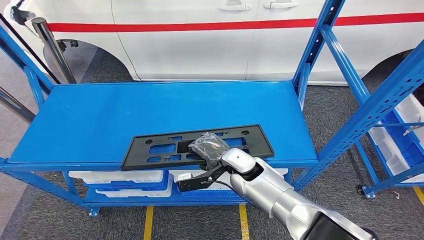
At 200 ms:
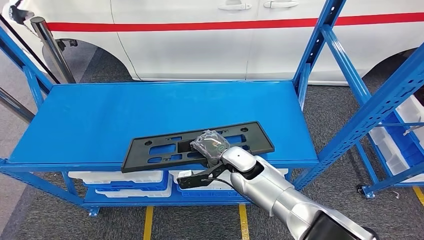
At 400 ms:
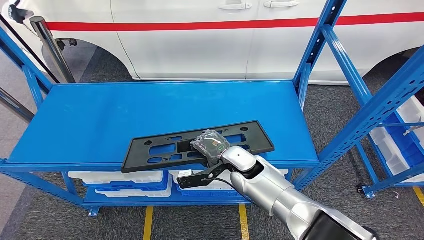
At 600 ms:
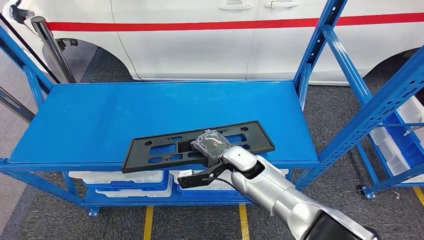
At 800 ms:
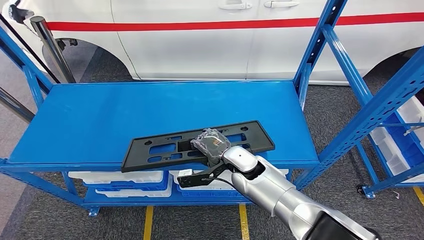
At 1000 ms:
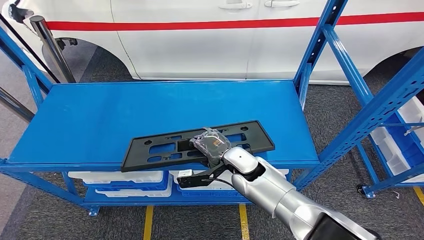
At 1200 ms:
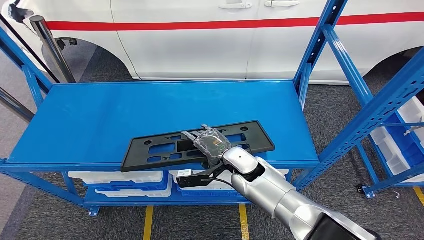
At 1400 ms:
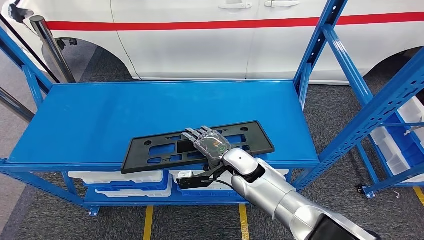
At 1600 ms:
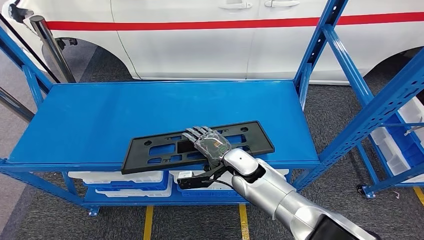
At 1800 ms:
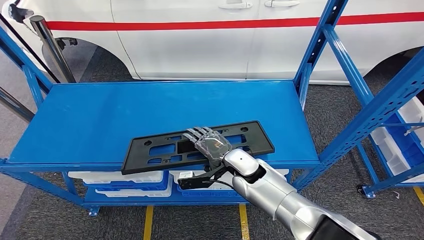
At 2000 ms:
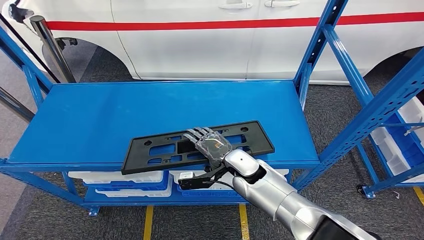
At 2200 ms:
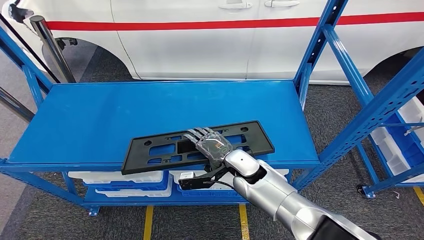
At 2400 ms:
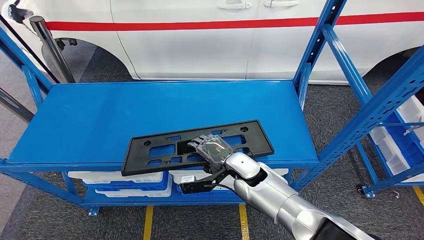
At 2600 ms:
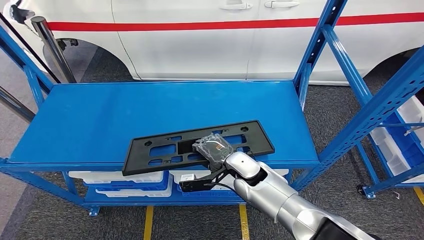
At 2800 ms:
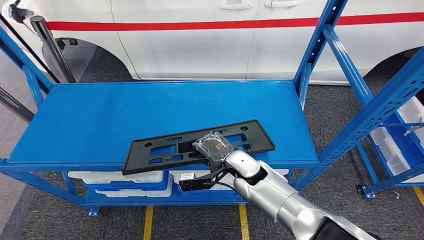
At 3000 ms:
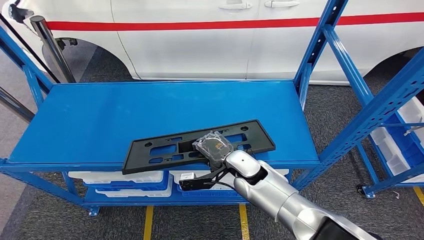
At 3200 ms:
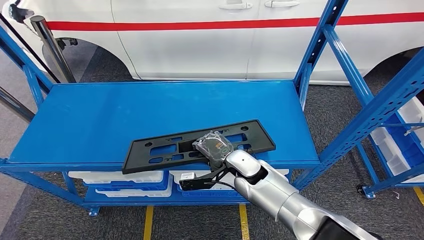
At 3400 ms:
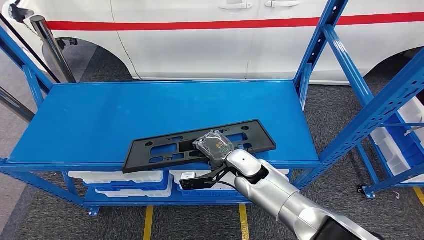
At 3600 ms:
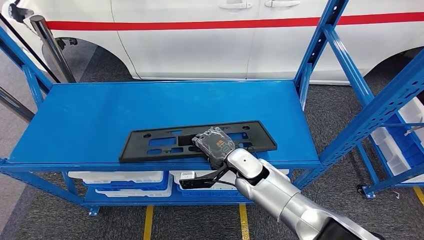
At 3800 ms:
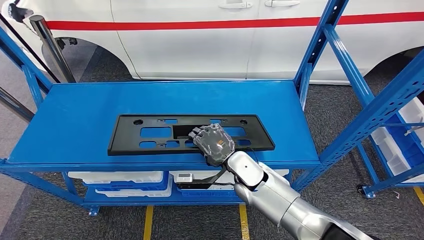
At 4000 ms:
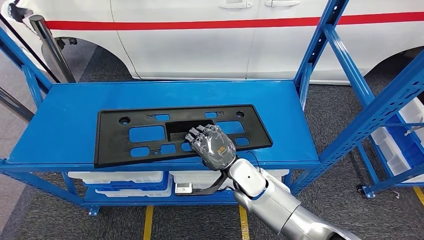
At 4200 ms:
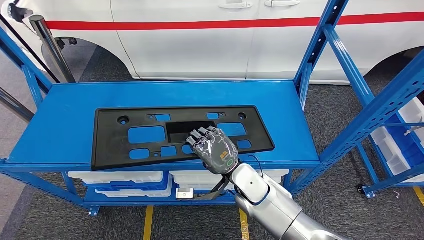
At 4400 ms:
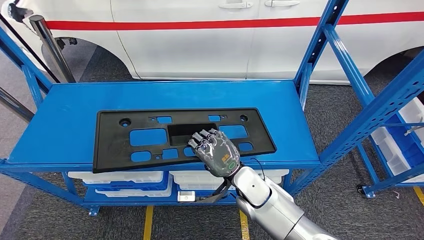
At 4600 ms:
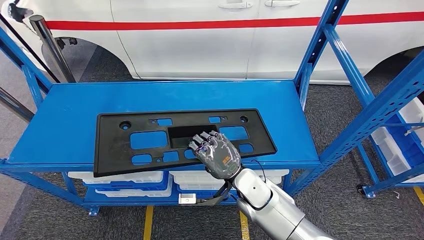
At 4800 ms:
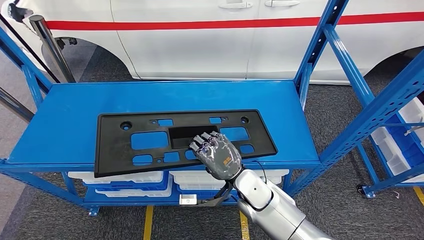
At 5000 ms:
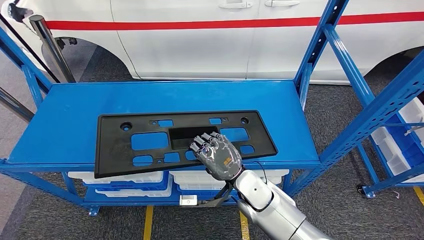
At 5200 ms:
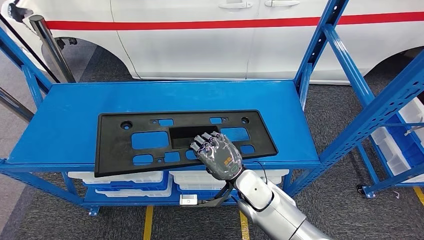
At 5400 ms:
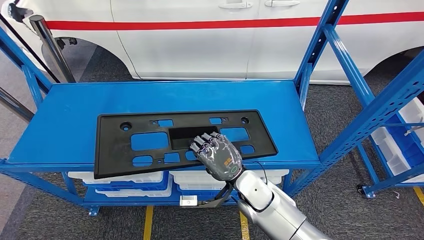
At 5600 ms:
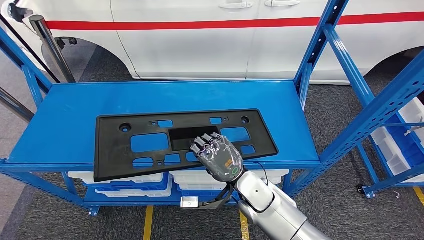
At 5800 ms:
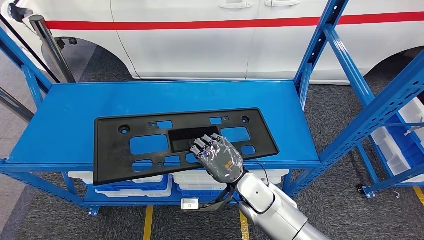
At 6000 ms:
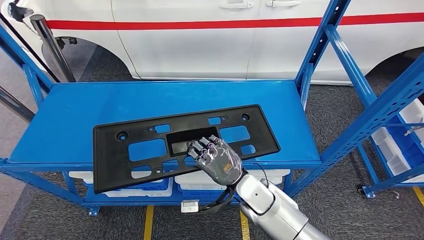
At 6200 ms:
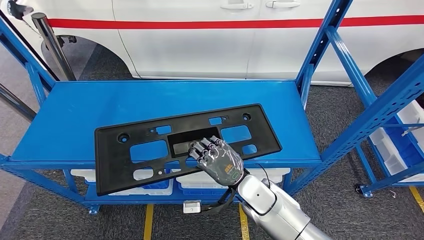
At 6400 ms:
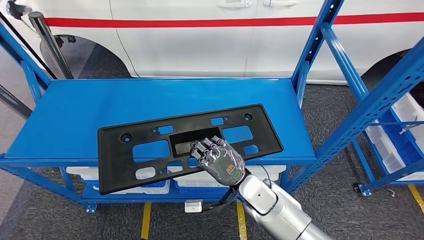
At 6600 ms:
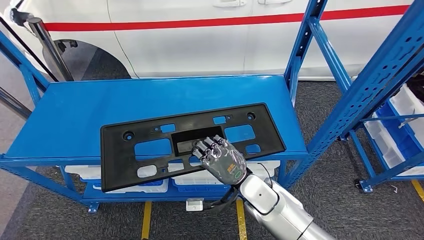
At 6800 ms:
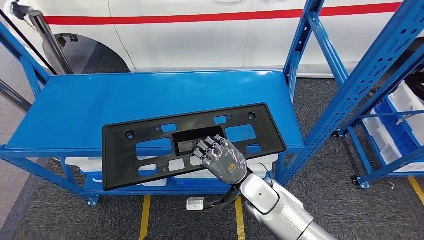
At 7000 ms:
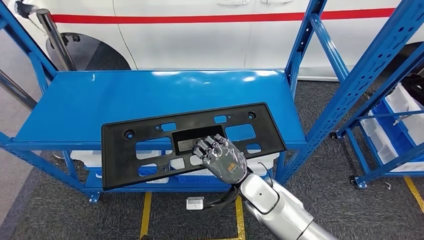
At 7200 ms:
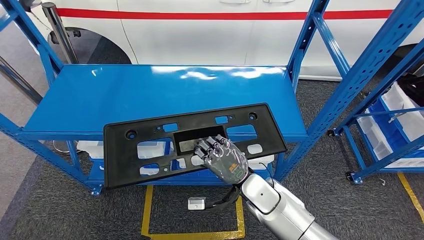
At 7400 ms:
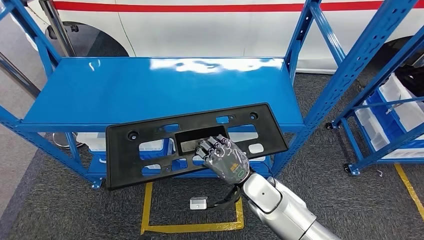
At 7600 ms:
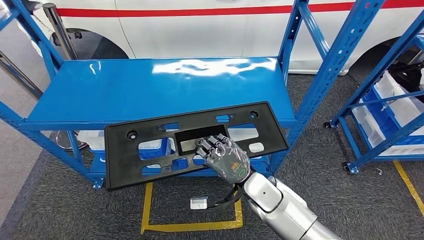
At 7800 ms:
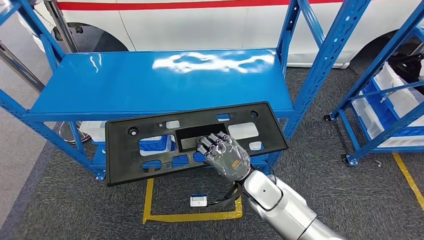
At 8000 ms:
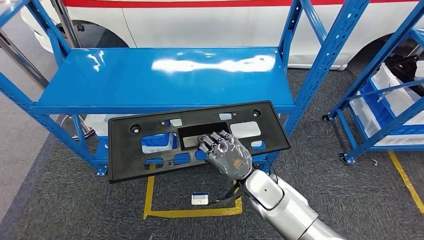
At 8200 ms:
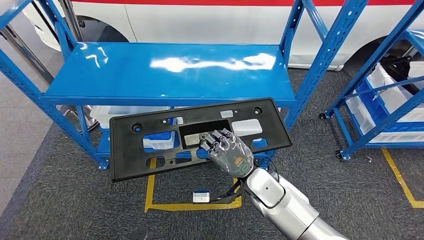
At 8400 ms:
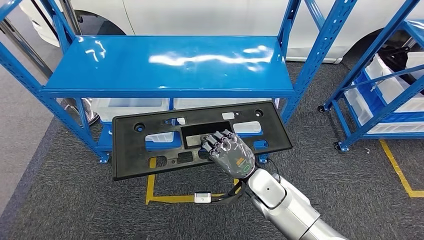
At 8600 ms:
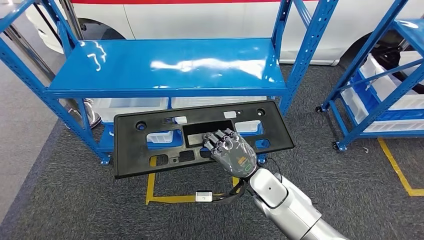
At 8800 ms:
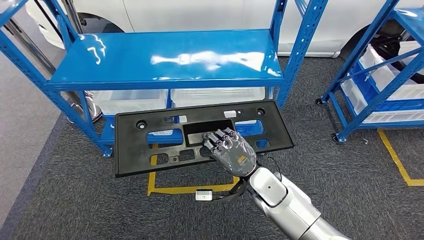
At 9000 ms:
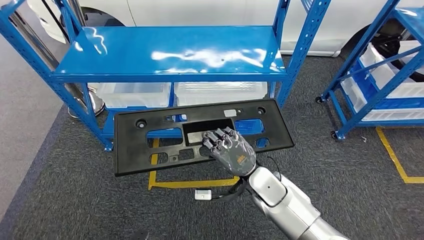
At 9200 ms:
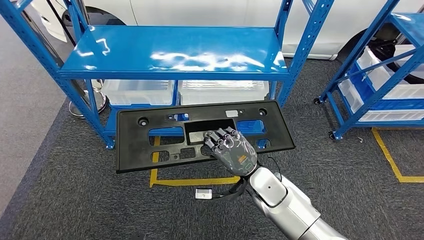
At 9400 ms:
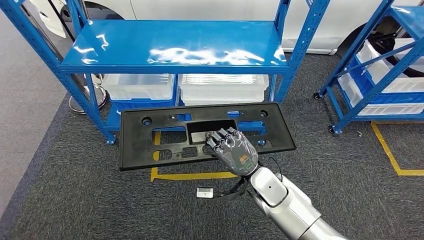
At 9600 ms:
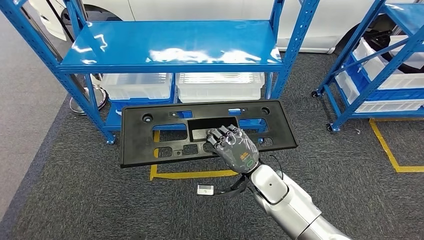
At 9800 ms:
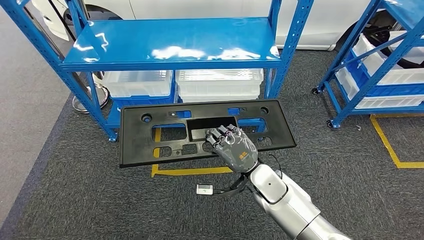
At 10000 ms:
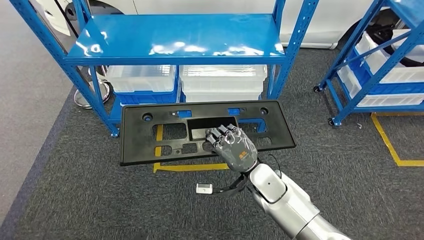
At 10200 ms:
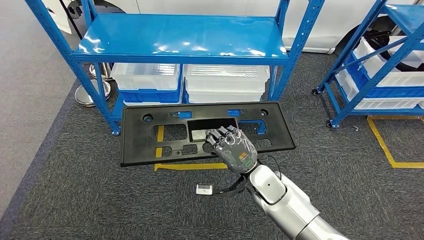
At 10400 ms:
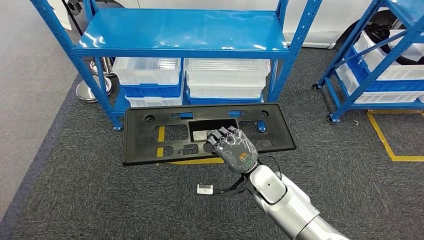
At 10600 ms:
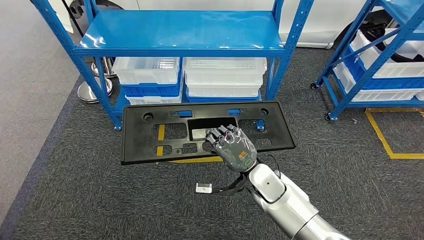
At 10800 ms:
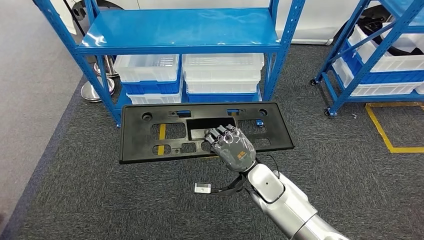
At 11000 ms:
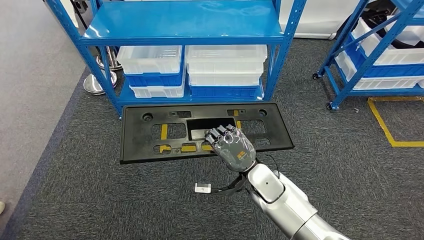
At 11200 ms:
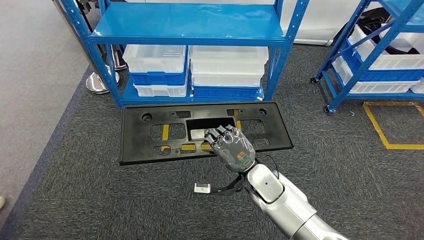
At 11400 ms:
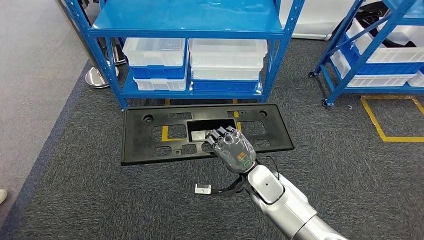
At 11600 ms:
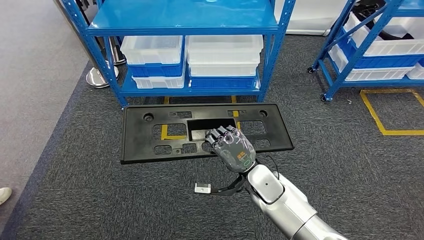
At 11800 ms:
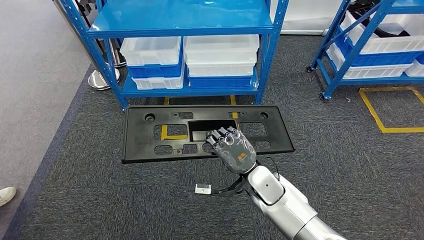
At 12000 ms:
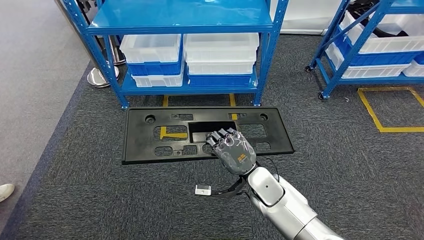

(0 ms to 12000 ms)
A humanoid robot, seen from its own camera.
Step, 0 ms - 4400 ms: Pick up the large material from the shelf.
0 ms - 1600 ms: The hands stay close to where they were, moving slightly.
1600 ms - 3000 ms: Both hands stay put.
4400 ms - 6000 ms: There are only small adjustments of the hands.

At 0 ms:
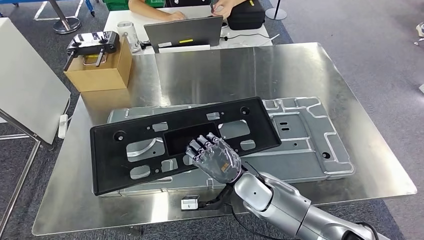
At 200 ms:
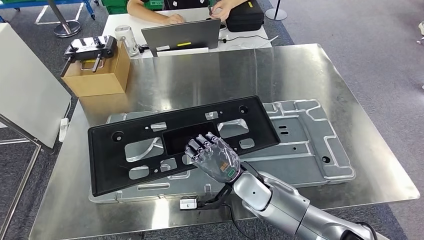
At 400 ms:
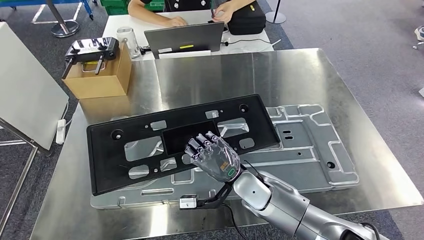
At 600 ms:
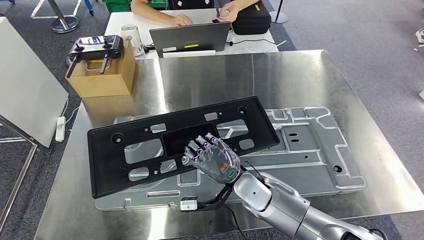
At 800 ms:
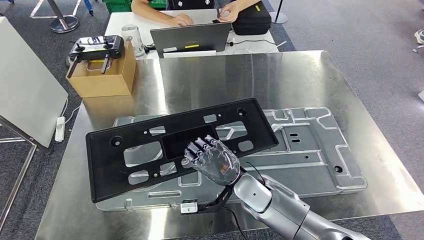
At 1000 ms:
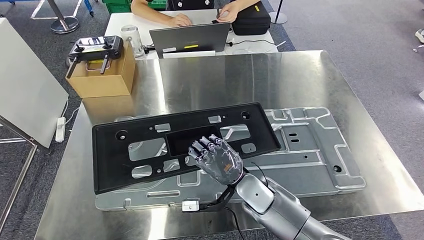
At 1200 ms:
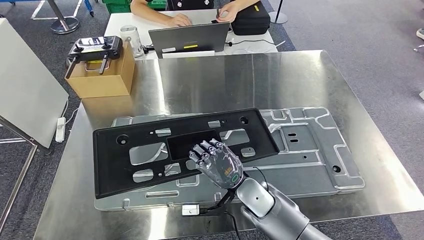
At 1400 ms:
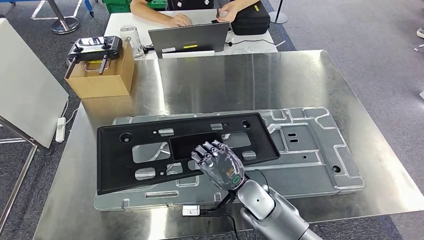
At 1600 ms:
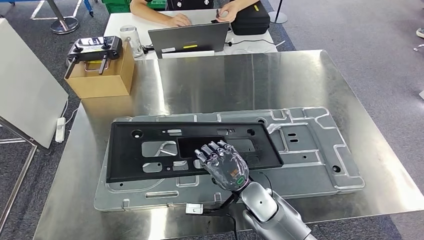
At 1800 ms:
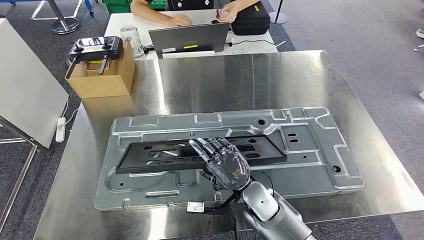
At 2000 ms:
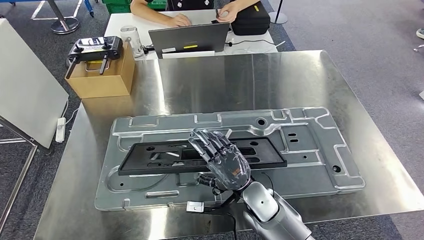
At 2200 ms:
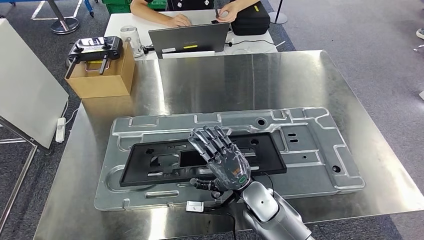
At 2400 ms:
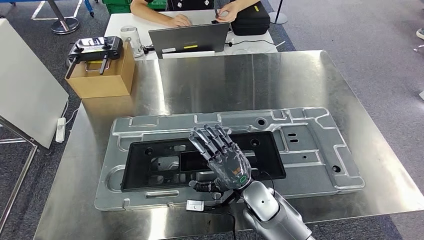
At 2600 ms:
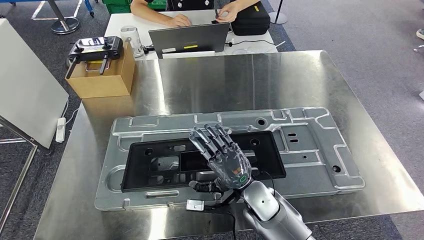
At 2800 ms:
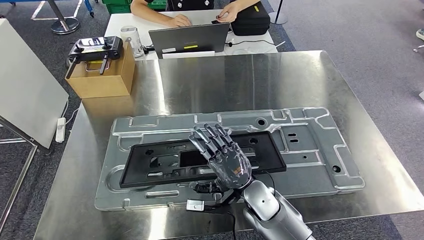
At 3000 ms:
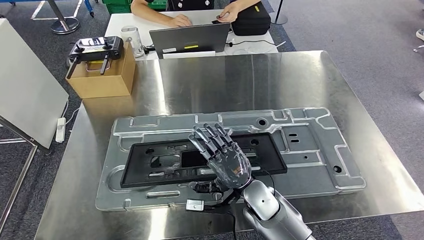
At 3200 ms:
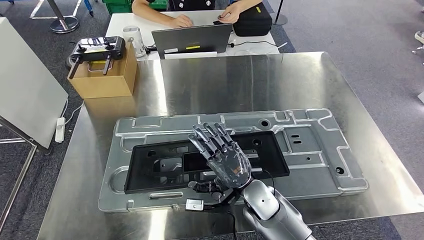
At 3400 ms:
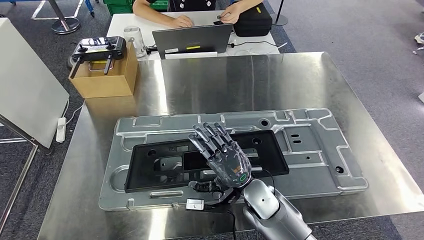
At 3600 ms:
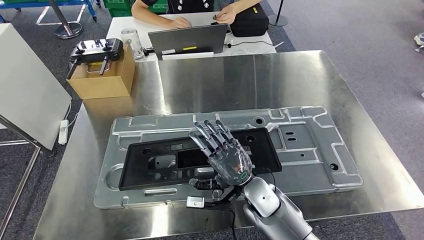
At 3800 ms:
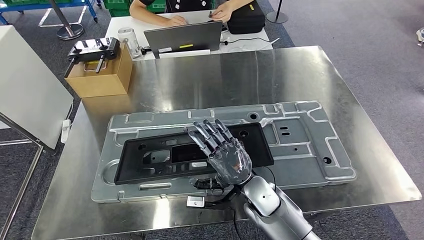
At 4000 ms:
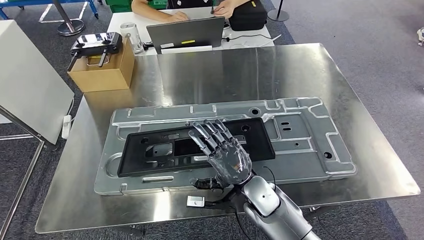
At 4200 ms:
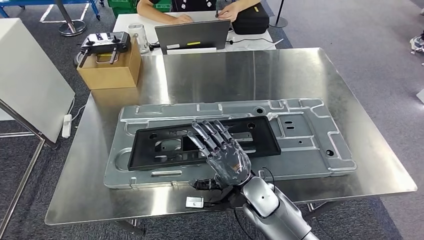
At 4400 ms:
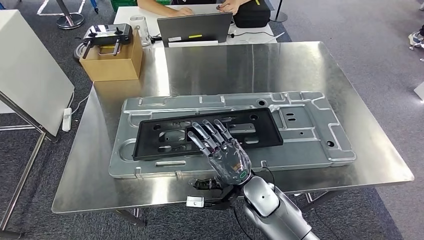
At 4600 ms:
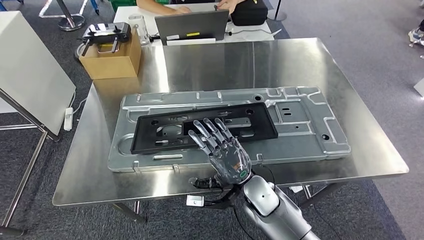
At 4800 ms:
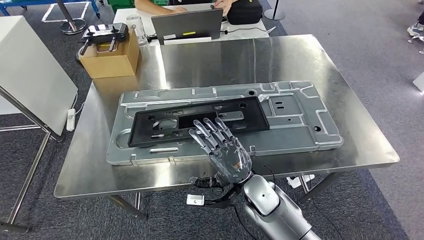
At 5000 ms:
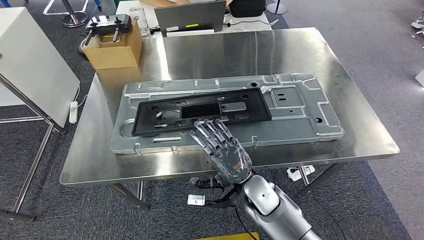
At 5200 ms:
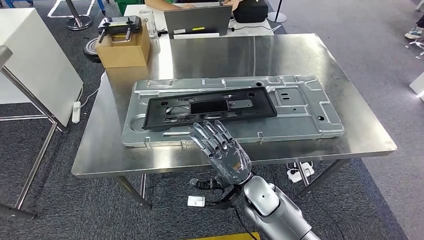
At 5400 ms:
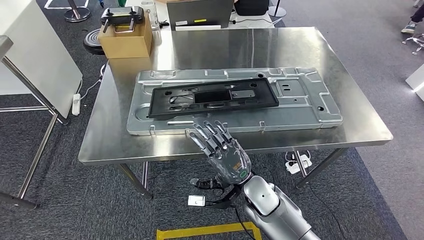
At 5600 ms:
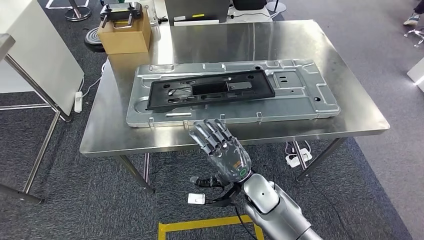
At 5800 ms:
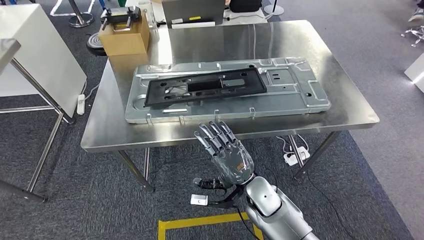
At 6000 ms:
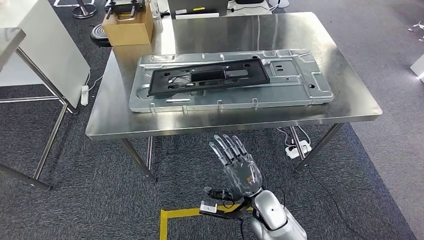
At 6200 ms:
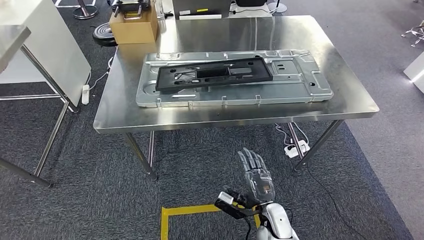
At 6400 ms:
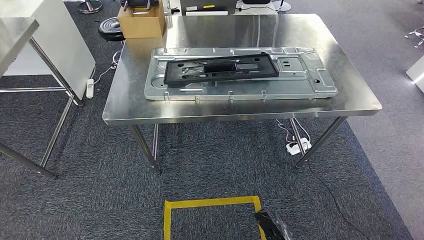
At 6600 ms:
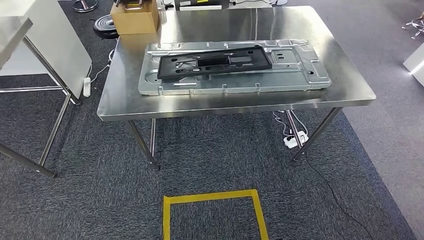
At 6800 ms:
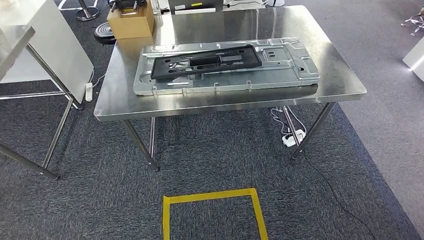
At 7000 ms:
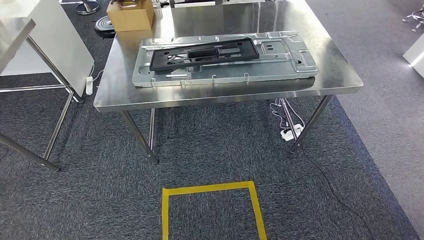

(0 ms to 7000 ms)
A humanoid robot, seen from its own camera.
Step, 0 ms - 3400 ms: Insert the large material into the corresponding slot on the workbench.
1400 ms - 2800 ms: The hands stay close to where they were, moving slightly.
